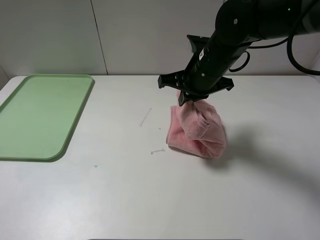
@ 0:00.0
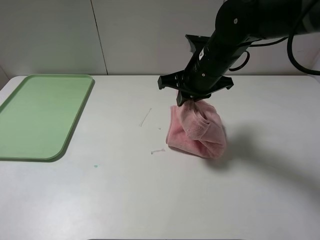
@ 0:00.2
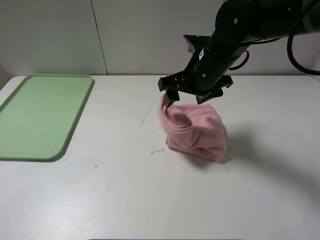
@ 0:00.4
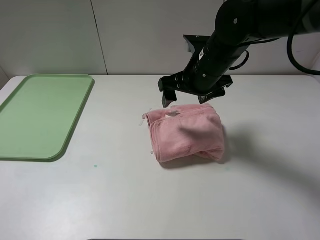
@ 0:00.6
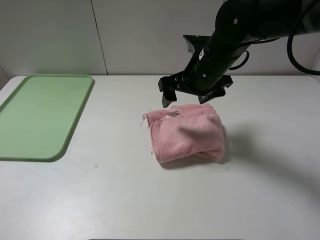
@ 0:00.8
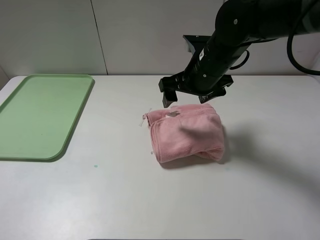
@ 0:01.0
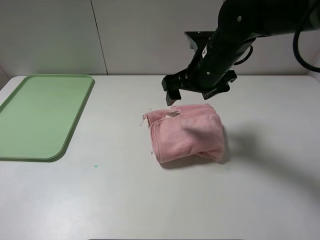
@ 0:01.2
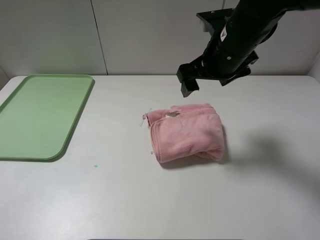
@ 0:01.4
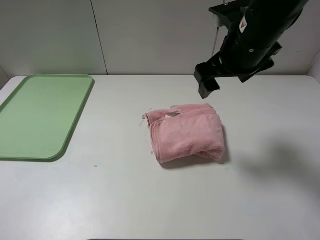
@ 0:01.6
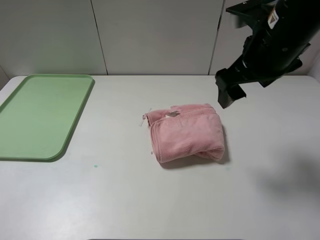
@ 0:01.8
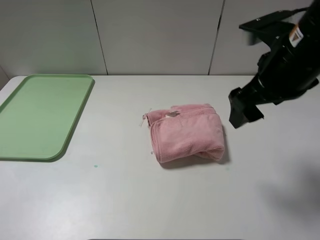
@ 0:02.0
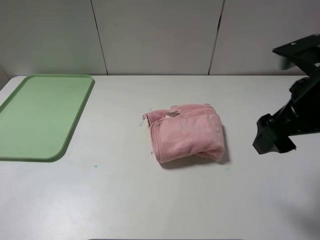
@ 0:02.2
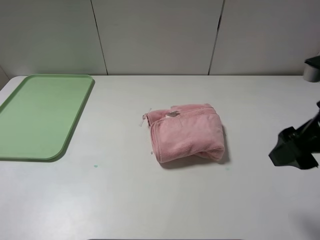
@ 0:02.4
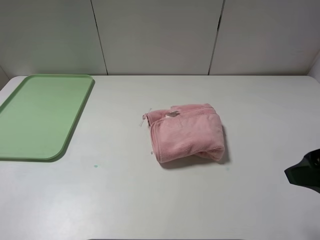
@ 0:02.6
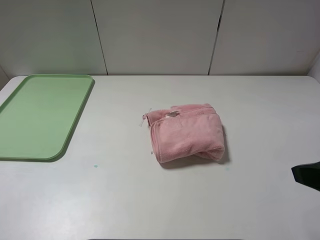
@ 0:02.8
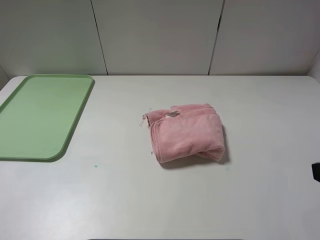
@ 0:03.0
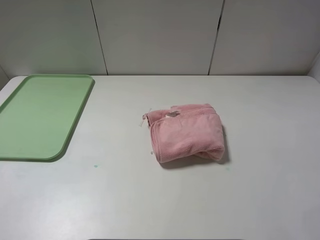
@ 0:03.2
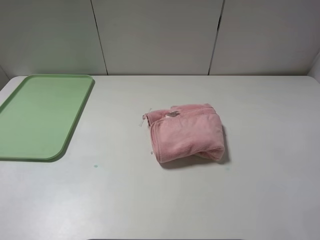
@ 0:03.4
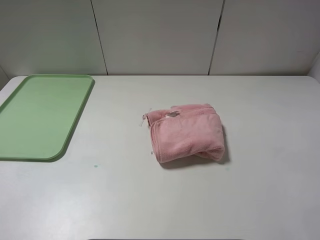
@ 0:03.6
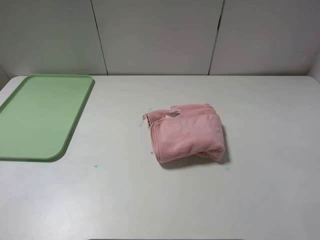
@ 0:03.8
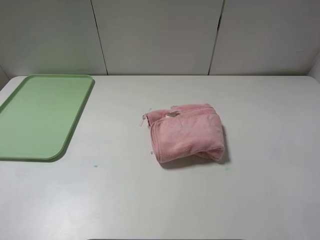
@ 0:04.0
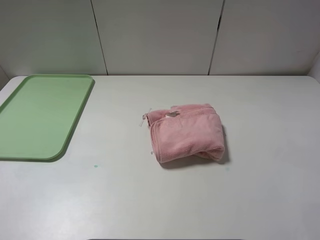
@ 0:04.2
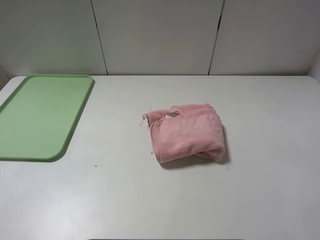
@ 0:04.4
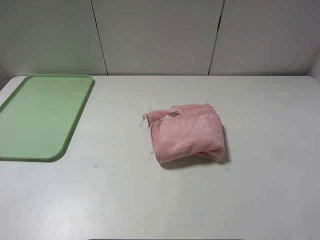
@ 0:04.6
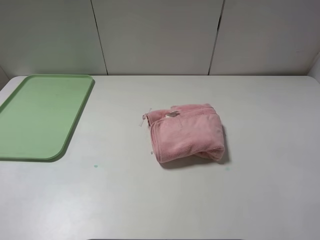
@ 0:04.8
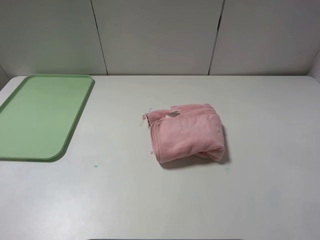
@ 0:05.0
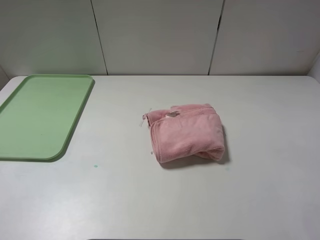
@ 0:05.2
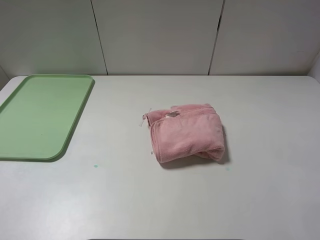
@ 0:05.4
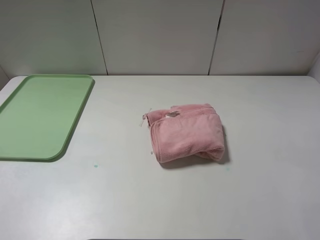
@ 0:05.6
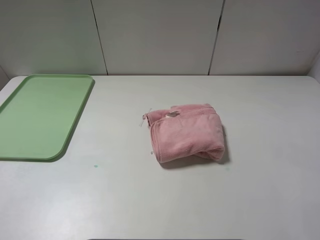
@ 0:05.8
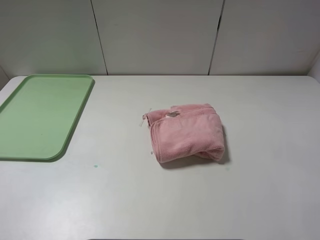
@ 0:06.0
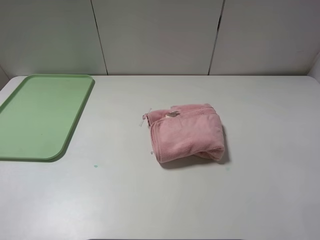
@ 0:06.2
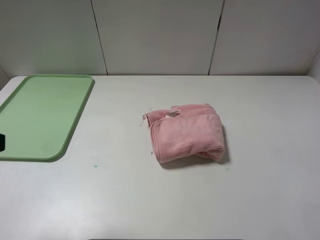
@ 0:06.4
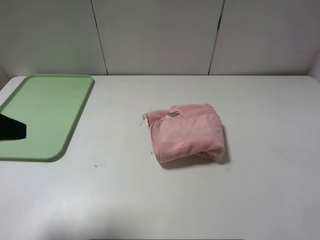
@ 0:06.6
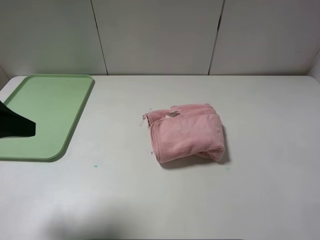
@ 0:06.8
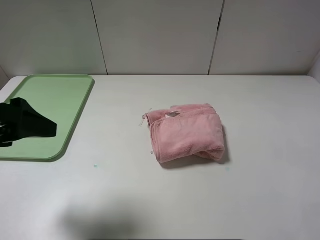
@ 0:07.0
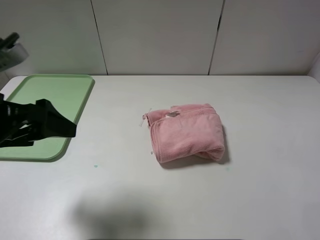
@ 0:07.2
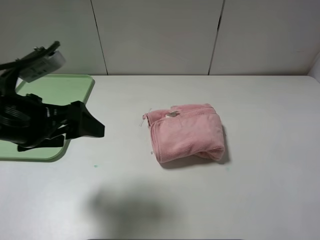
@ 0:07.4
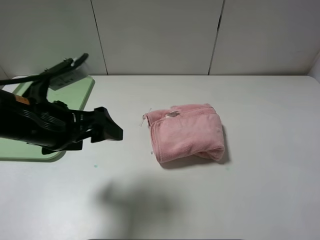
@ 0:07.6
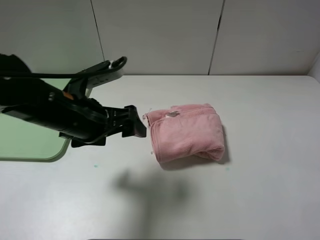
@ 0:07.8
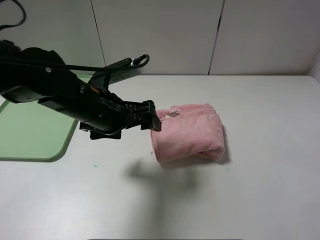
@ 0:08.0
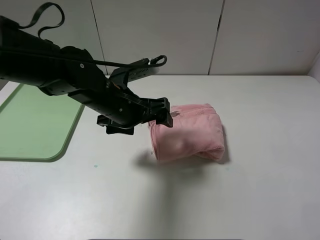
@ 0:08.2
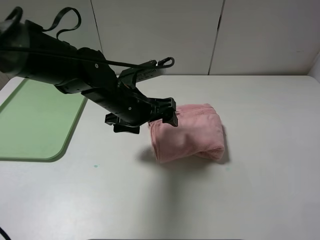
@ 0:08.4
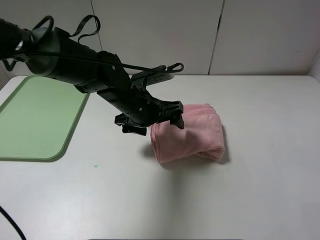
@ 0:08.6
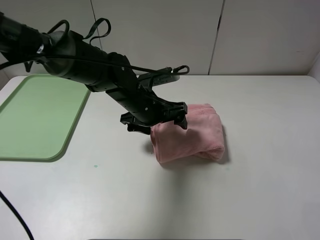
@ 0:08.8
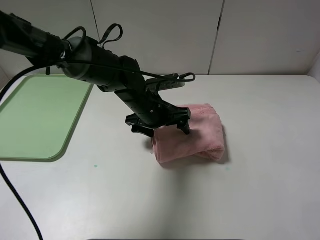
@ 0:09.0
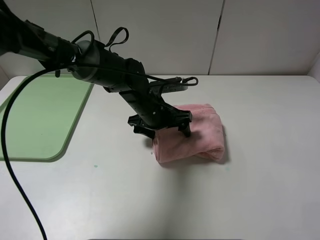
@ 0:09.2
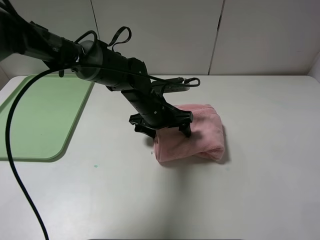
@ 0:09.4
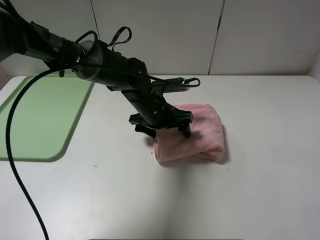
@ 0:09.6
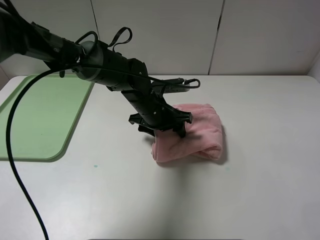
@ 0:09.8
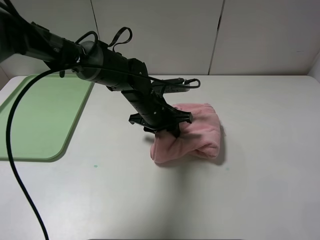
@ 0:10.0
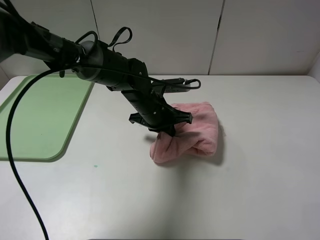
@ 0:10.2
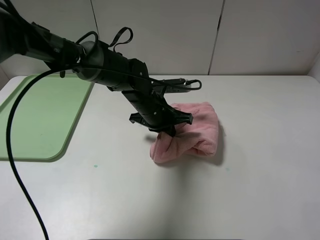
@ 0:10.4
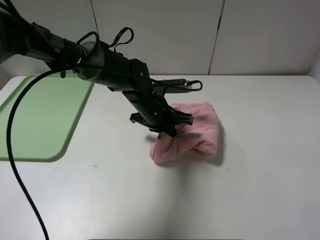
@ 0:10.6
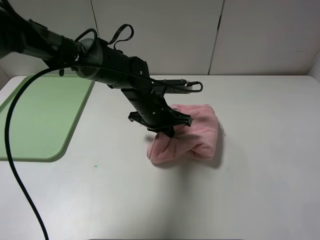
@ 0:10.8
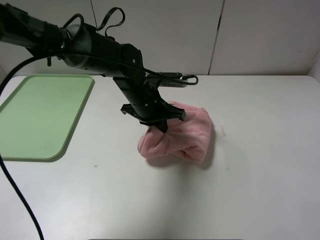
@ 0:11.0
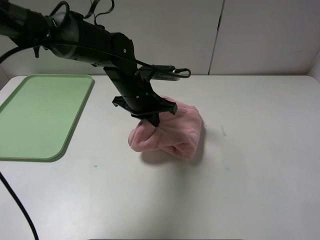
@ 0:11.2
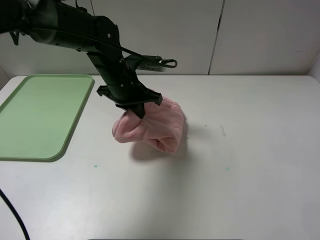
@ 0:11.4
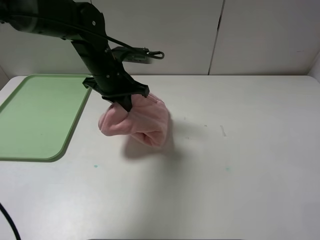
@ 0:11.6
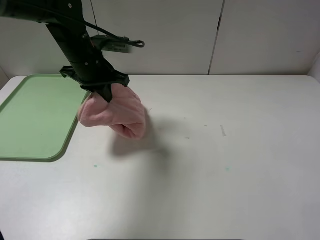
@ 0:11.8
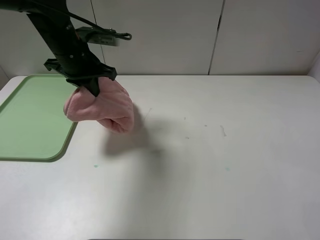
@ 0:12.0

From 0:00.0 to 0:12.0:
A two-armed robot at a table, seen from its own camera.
From 0:00.0 to 0:01.6: The right gripper heads upward, covering approximately 5 cm, and opens up.
From 0:01.6 to 0:03.0: The right gripper shifts about 30 cm backward and to the right.
From 0:06.0 to 0:07.6: The left gripper heads forward, to the right and downward, covering about 25 cm.
From 0:07.6 to 0:09.0: The left gripper goes approximately 20 cm to the right, forward and downward.
From 0:09.0 to 0:10.4: The left gripper closes its fingers.
From 0:10.4 to 0:12.0: The left gripper shifts some 20 cm to the left and upward.

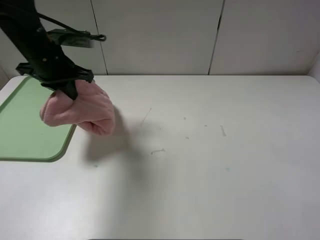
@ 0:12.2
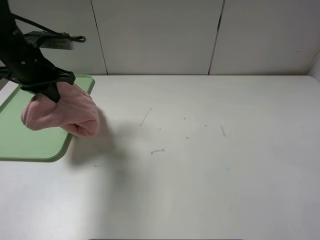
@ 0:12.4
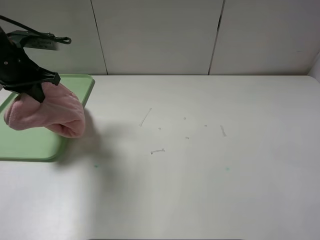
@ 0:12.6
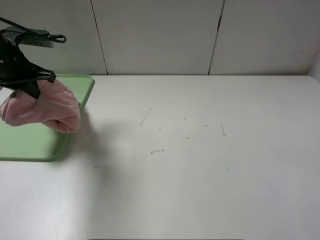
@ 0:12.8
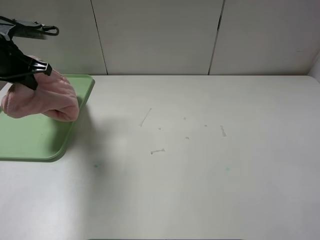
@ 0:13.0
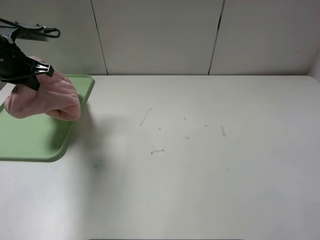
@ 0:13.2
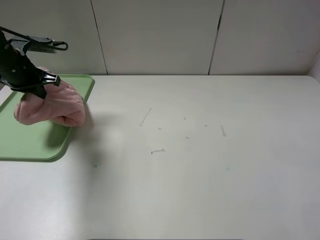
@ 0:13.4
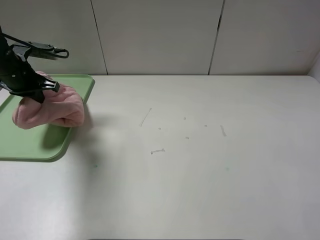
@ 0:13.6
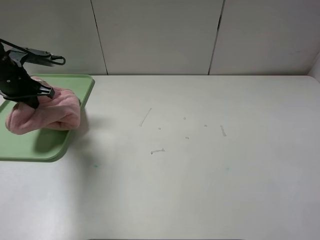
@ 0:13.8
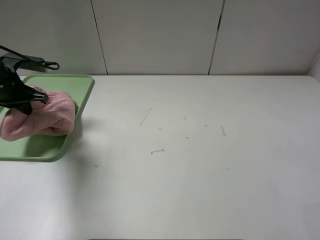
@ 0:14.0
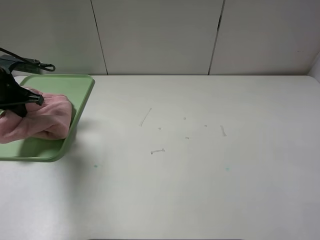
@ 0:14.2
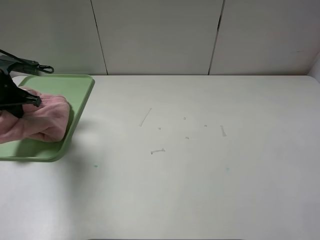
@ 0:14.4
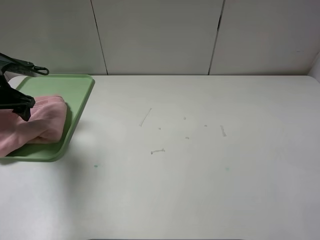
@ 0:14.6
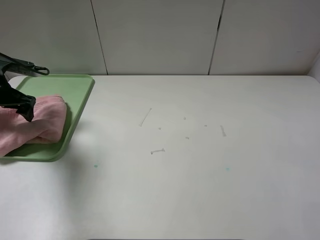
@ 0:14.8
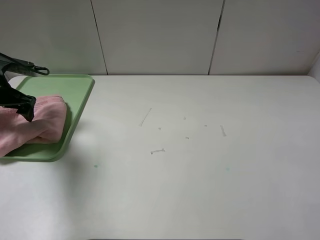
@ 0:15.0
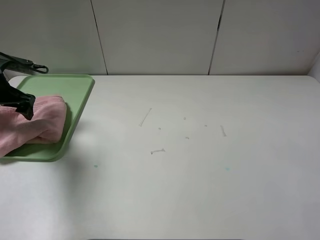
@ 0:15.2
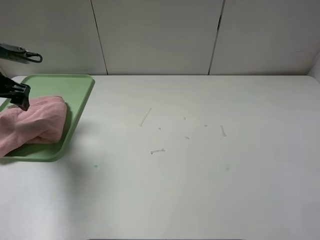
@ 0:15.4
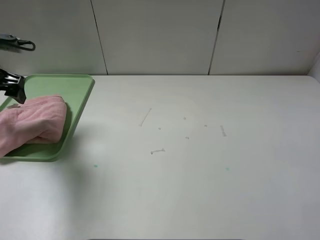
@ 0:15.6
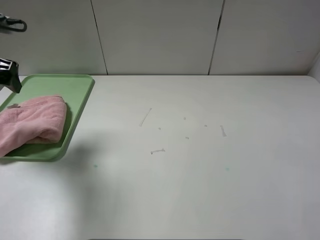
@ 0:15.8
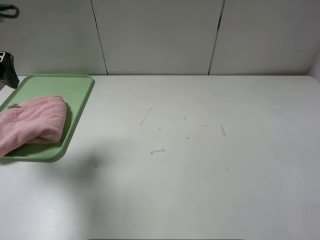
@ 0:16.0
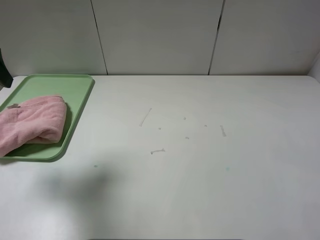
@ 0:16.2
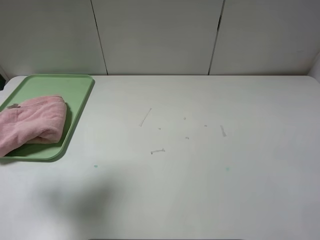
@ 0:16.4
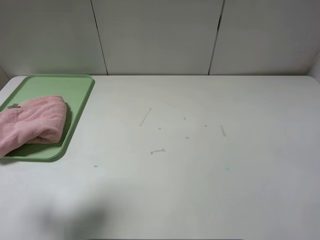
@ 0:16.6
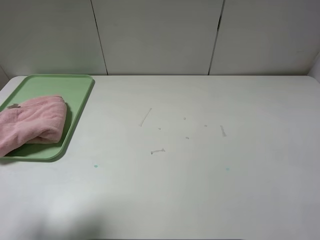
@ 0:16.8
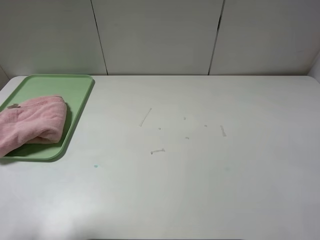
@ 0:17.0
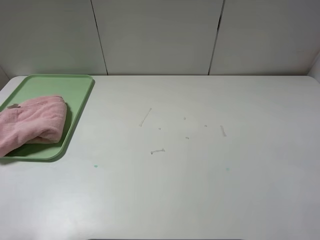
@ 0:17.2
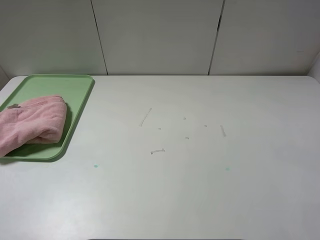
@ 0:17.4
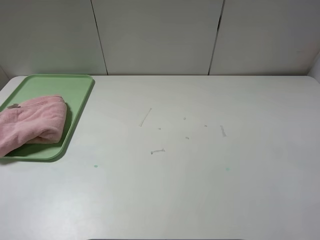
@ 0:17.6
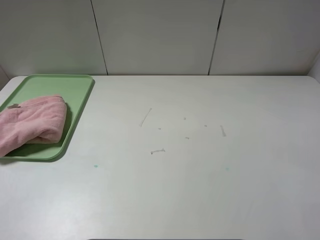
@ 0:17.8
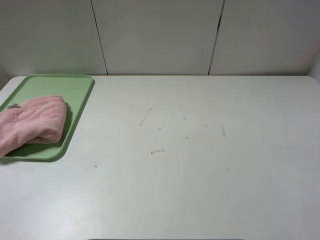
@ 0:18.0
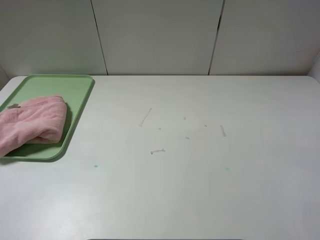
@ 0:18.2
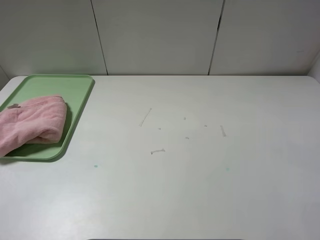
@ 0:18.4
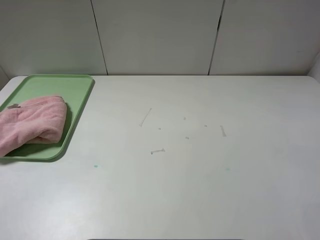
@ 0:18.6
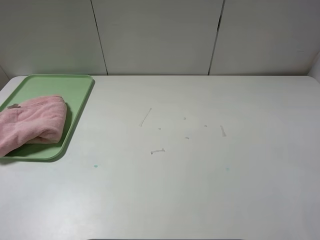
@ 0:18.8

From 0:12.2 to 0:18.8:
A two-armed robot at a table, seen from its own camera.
Step, from 0:12.2 to 0:15.4: Place the folded pink towel on the tray with the left gripper.
From 0:12.2 to 0:13.8: The left gripper is displaced to the left and downward by some 10 cm.
From 0:13.8 to 0:15.4: The left gripper opens its fingers.
From 0:15.4 to 0:17.2: The left gripper moves backward, roughly 25 cm.
